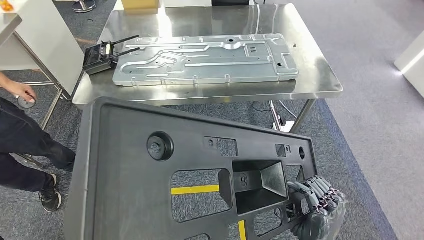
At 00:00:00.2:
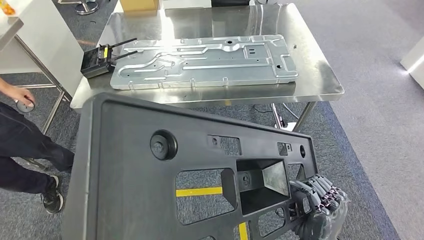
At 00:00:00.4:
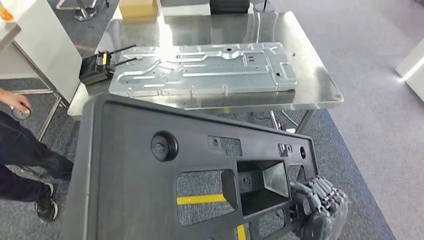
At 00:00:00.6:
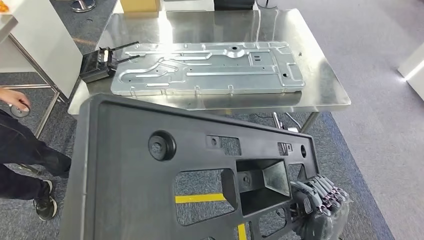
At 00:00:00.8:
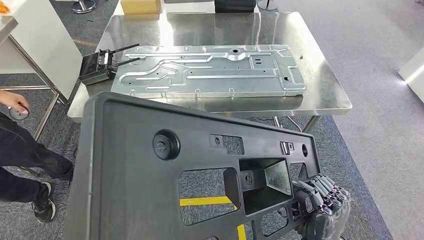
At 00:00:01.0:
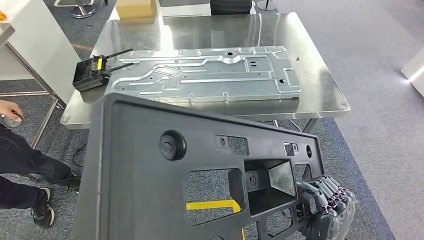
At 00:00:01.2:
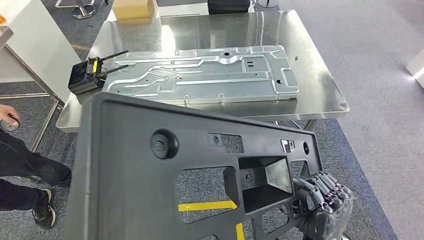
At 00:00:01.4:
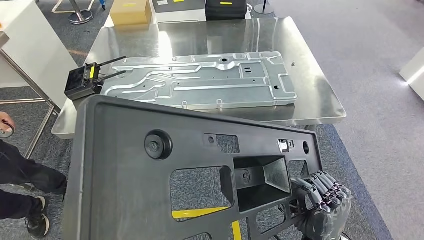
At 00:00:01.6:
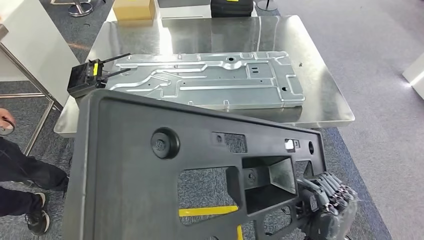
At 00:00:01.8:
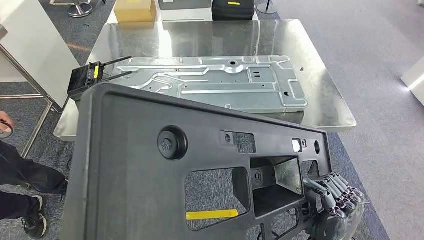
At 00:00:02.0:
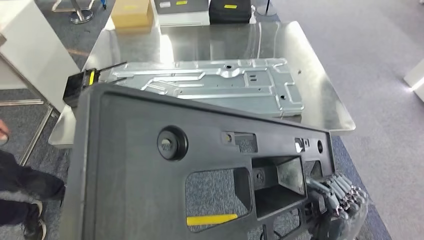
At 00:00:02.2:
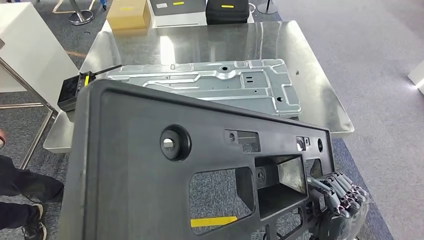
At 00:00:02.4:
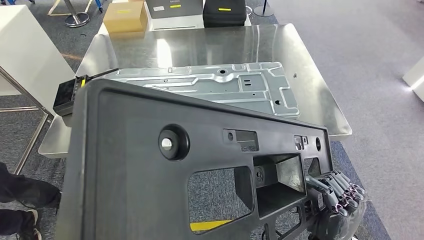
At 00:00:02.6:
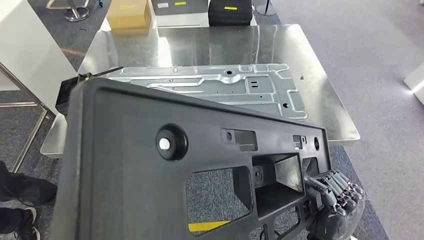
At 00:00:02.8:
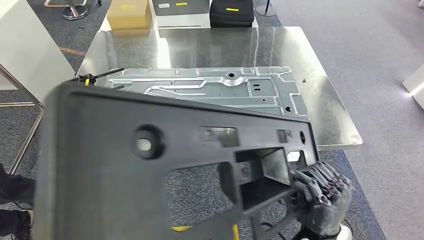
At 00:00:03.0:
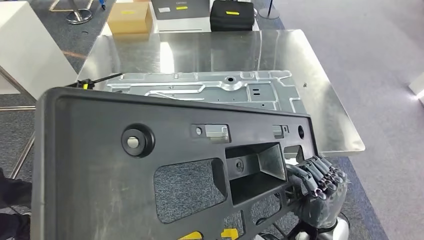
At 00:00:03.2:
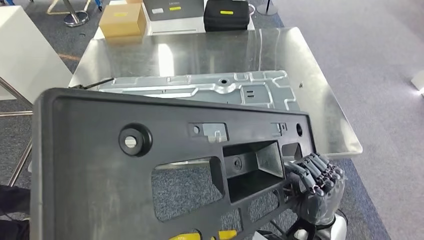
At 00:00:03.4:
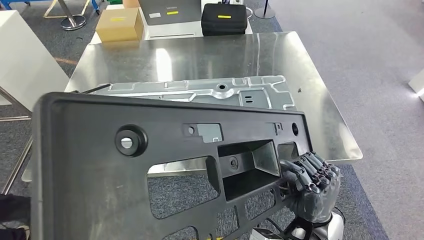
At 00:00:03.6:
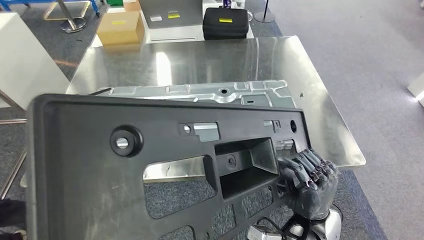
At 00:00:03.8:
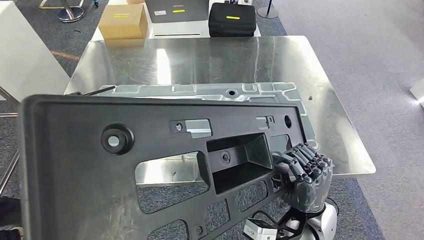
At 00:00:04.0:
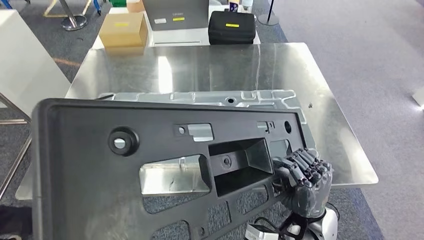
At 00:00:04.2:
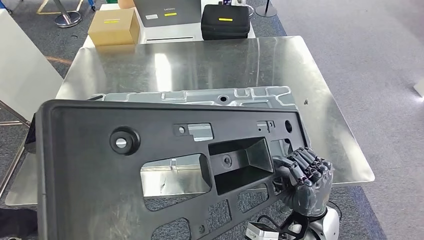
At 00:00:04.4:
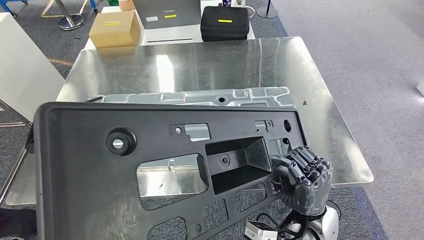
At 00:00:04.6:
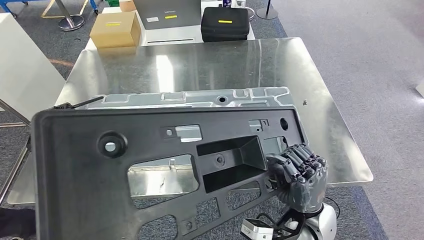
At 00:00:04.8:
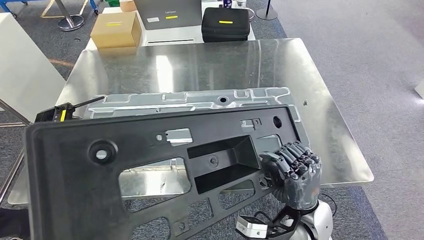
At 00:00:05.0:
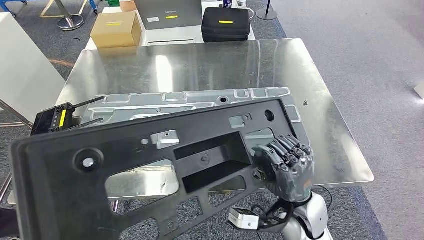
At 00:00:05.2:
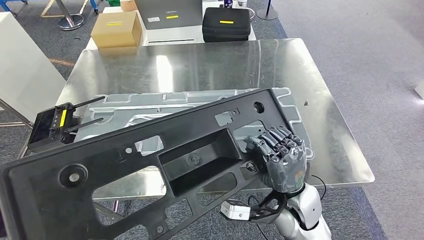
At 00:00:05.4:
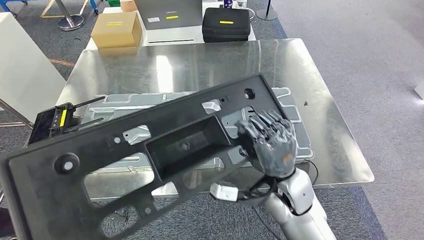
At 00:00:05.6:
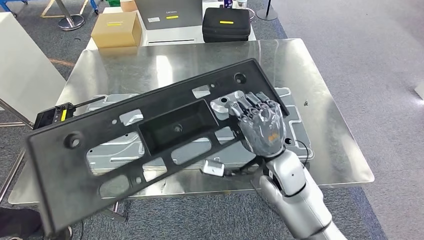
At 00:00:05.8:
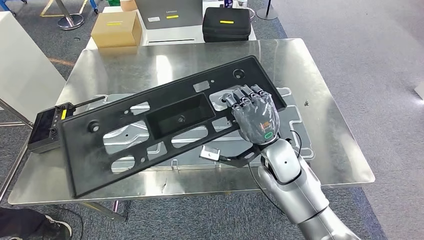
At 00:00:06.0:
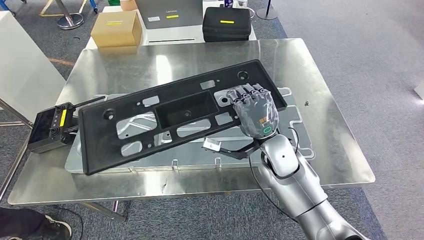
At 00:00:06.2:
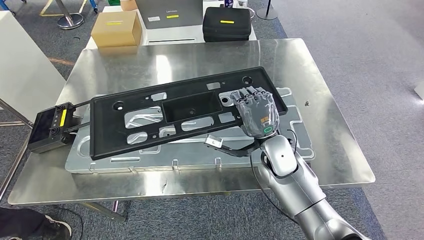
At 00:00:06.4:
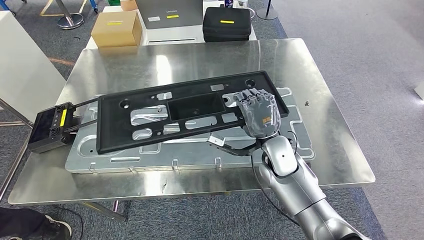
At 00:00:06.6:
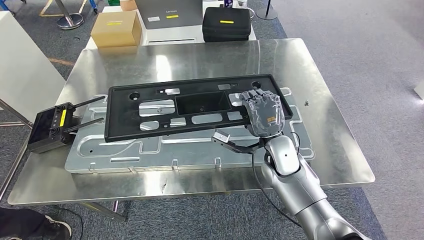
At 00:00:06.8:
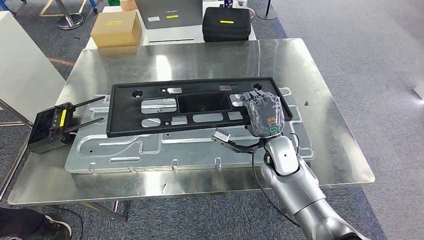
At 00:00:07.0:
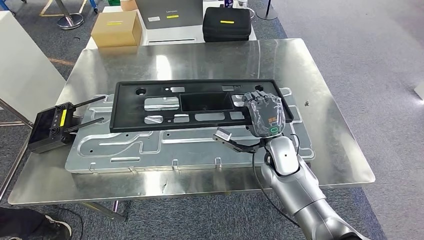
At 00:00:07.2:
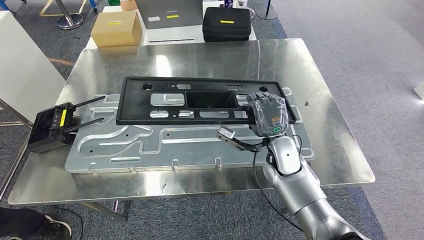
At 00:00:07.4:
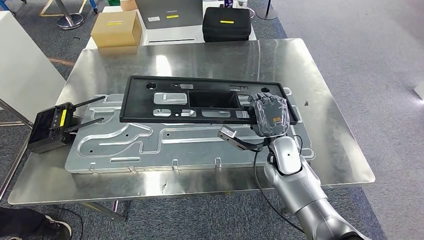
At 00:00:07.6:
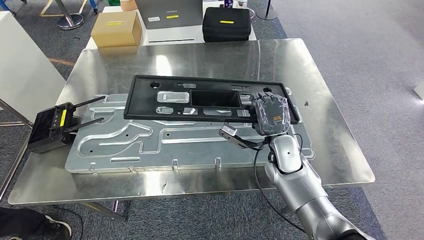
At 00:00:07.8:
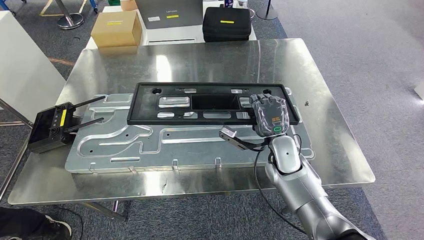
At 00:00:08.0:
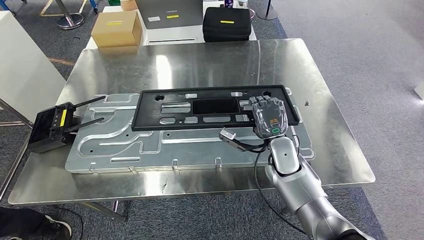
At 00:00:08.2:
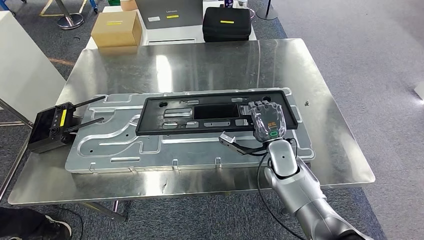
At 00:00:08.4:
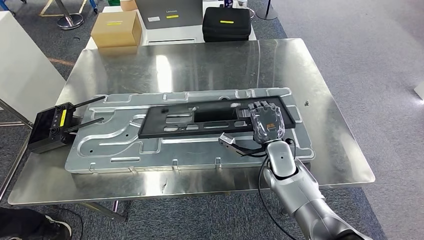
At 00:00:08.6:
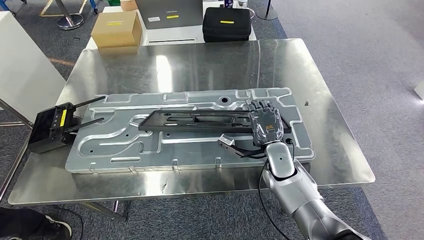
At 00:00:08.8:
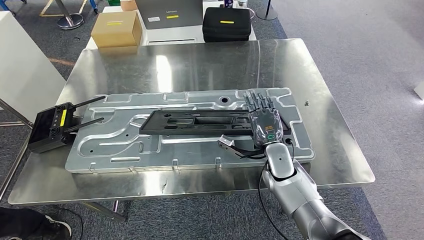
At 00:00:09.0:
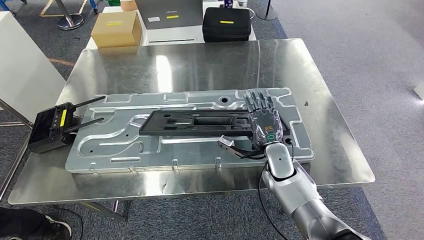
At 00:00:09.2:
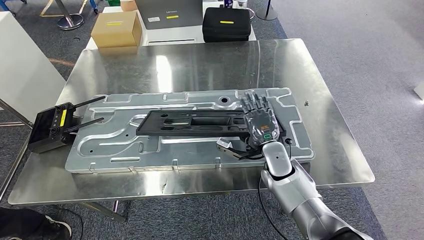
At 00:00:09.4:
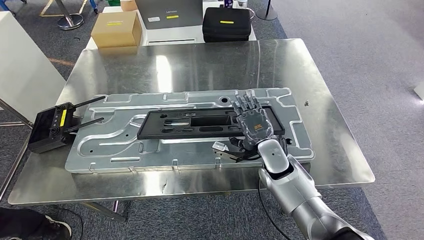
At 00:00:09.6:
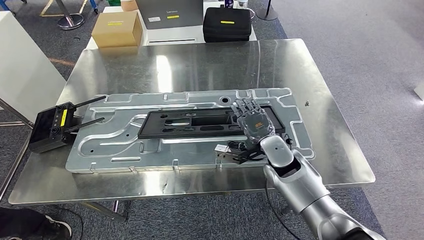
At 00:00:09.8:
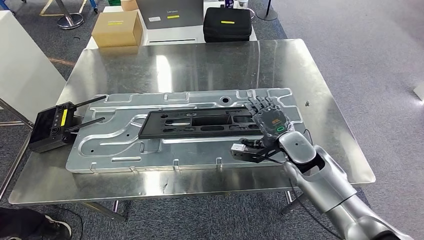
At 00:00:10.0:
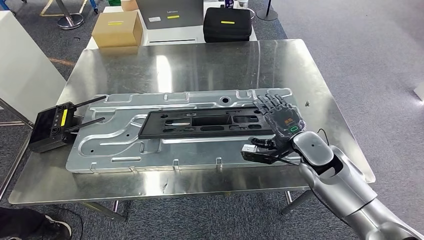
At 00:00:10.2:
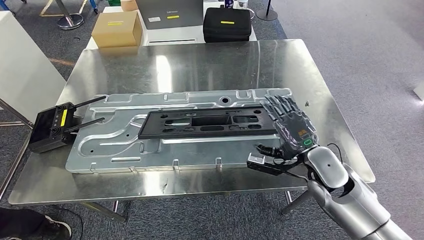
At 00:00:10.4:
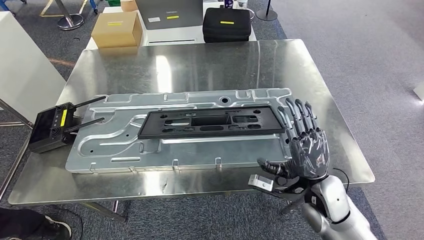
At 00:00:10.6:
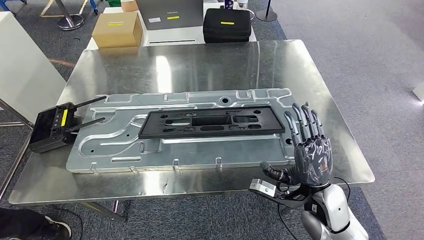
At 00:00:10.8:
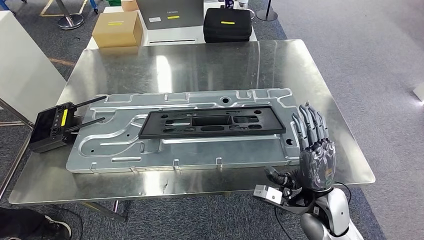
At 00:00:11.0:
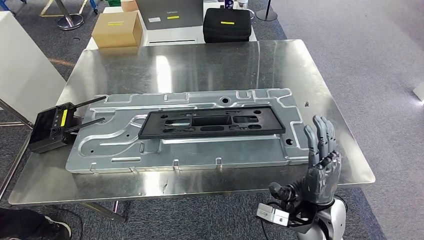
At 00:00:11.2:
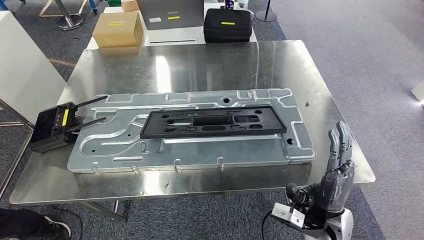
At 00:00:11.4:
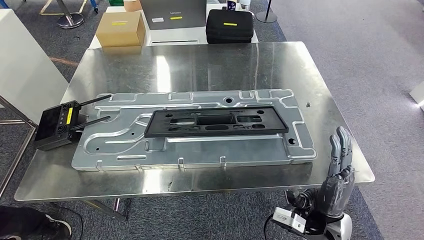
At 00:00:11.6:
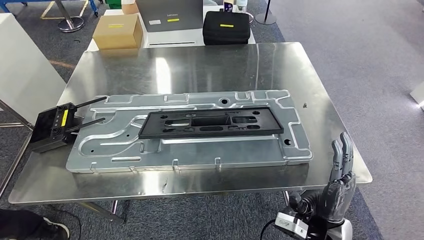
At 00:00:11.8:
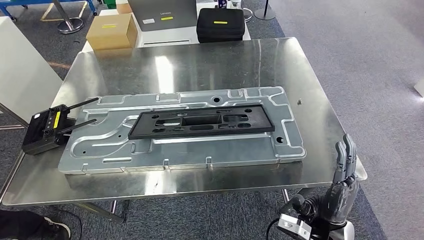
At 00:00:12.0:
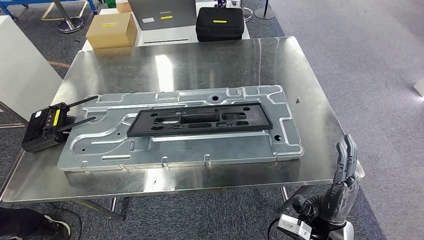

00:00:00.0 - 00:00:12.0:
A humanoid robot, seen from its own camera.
Step, 00:00:00.0 - 00:00:02.2: Move the large material to the workbench.
Step, 00:00:03.0 - 00:00:10.2: Insert the large material into the corresponding slot on the workbench.
00:00:07.6 - 00:00:09.0: The hands move only a little.
00:00:09.0 - 00:00:10.4: The right hand goes approximately 15 cm backward and to the right.

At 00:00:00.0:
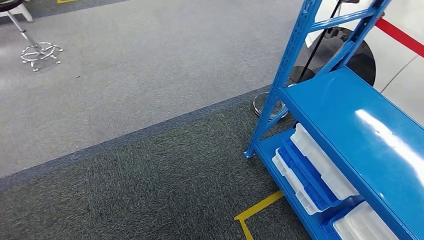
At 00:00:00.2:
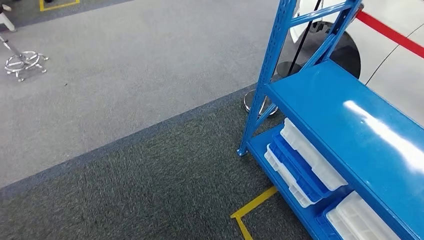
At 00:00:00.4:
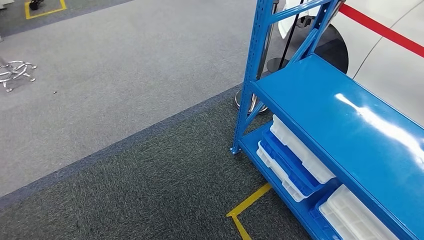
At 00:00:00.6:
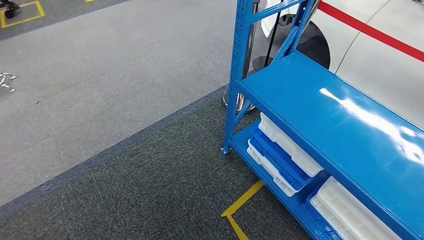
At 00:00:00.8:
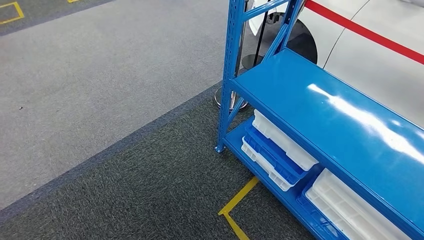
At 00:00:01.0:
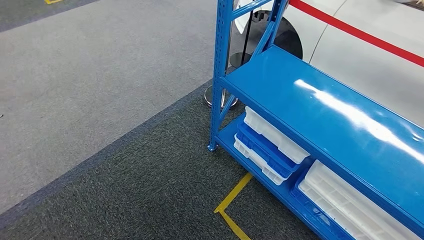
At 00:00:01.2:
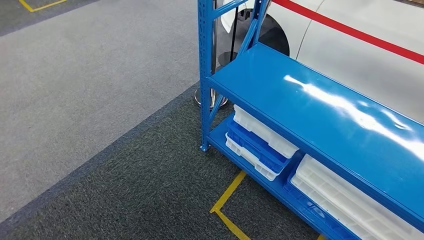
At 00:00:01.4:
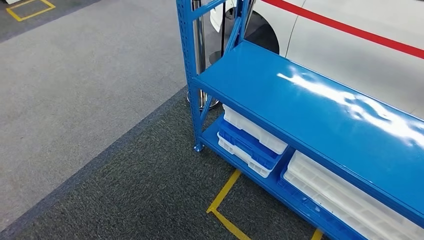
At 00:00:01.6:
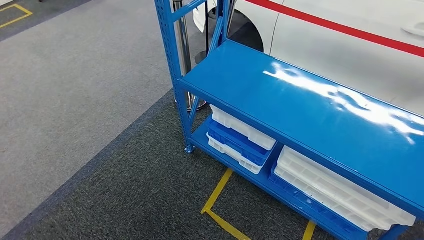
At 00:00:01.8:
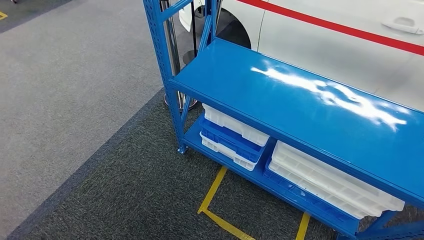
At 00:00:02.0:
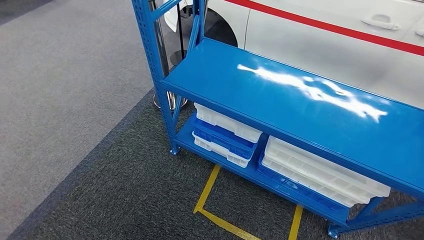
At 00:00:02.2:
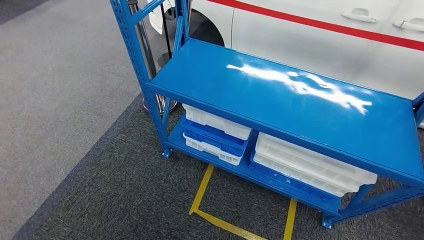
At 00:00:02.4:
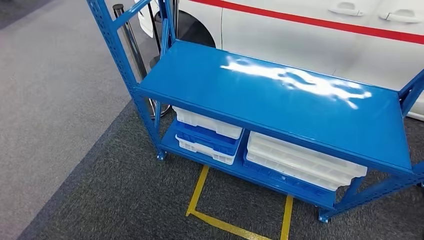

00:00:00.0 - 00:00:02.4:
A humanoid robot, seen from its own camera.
Step, 00:00:00.0 - 00:00:02.2: Move to the initial position of the shelf.
